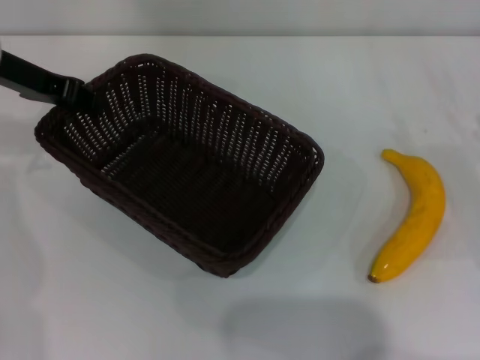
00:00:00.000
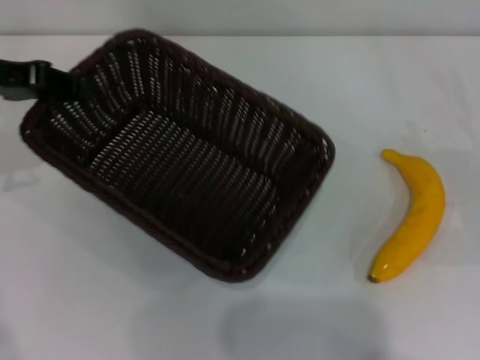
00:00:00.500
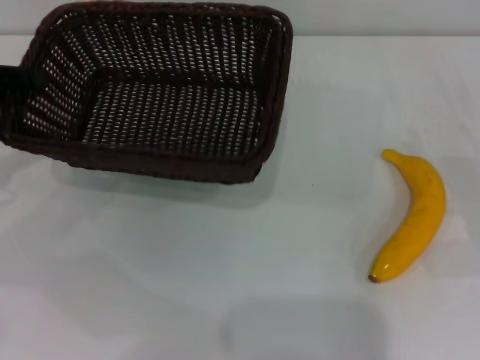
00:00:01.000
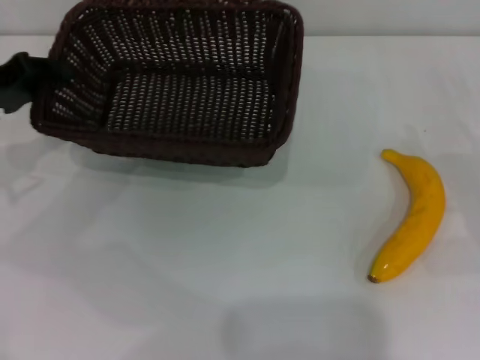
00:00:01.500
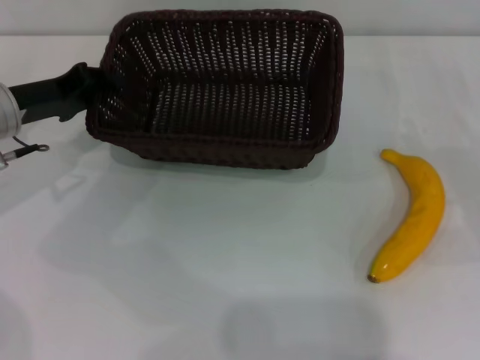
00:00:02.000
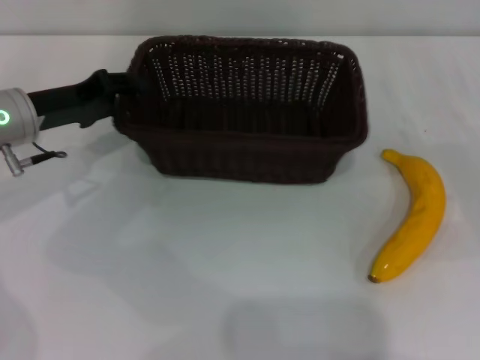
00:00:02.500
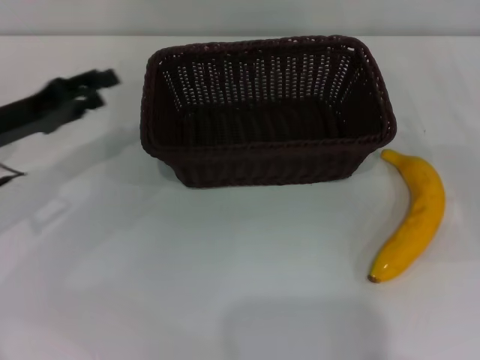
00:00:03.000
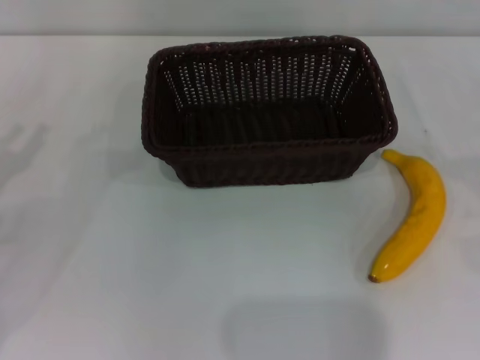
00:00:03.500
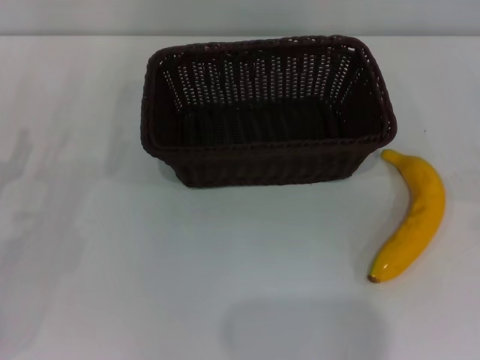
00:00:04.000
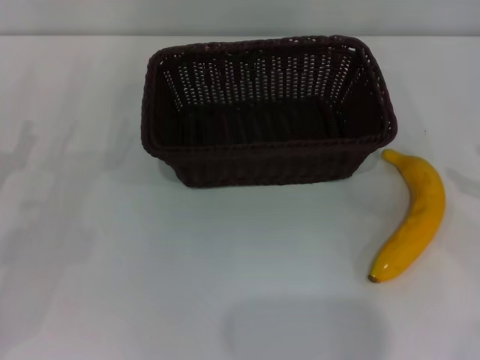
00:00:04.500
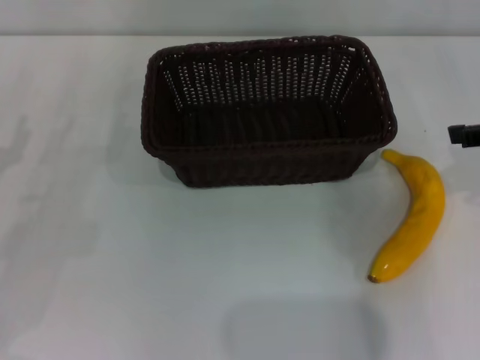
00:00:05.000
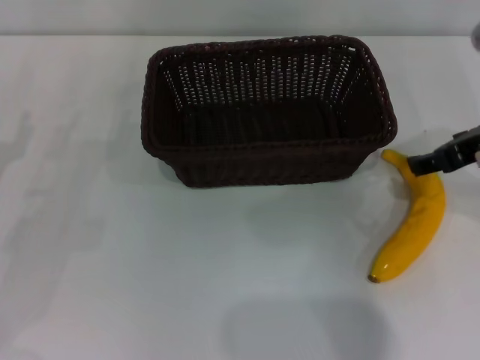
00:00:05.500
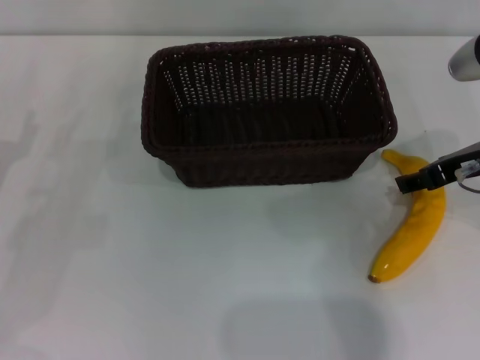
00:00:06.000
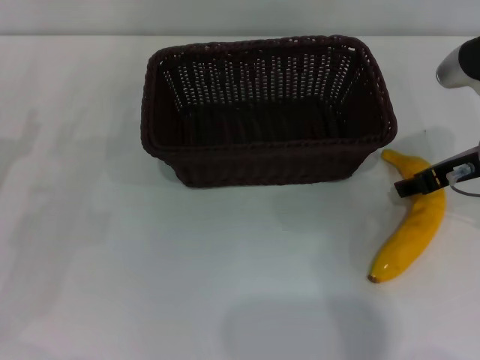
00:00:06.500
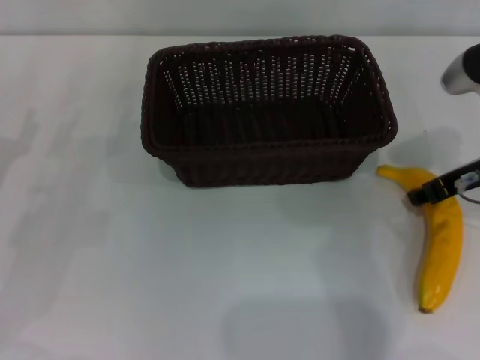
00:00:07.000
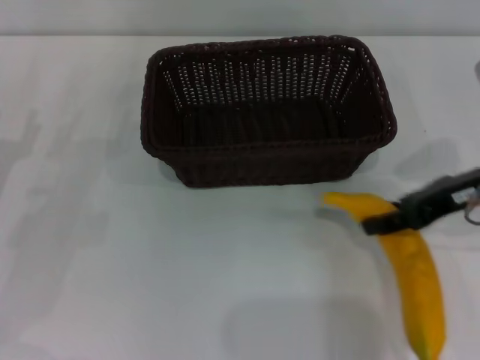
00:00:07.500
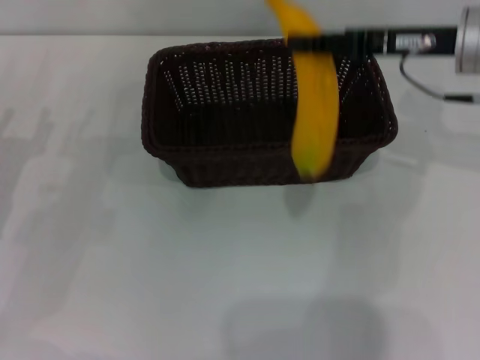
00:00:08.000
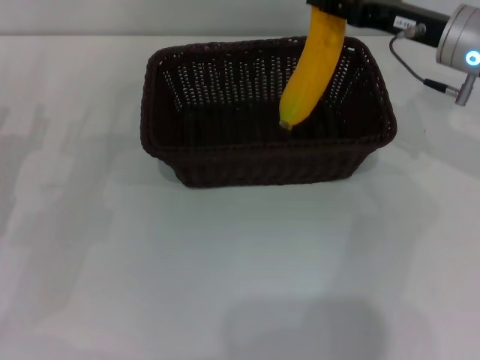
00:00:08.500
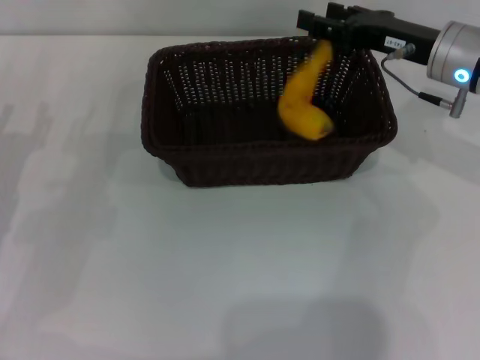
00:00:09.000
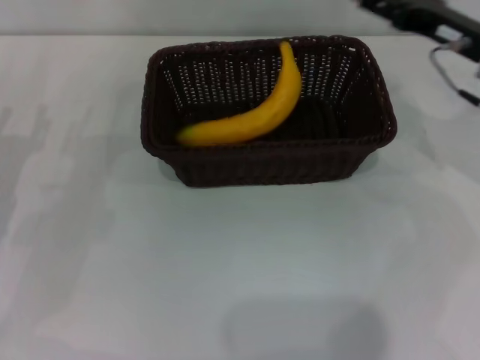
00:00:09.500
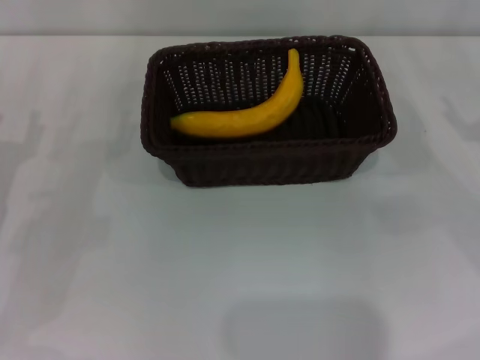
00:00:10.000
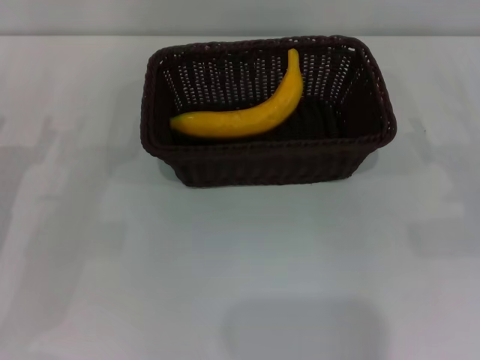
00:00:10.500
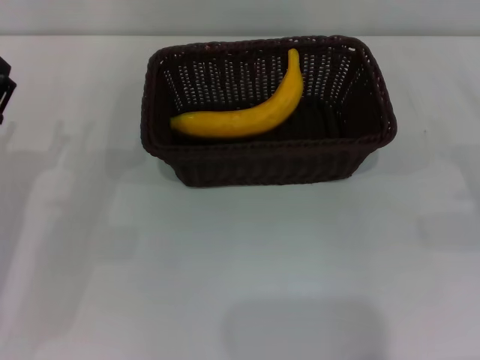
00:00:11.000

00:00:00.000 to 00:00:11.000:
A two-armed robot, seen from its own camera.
Step, 00:00:01.500 to 00:00:02.500: Place the dark basket in the center of view with the left gripper.
Step, 00:00:03.000 to 00:00:07.500: Pick up the banana with the right gripper.
Step, 00:00:08.000 to 00:00:09.000: Place the banana into the dark basket with the right gripper.
00:00:00.000 to 00:00:02.000: The left gripper travels downward by roughly 10 cm, and goes to the left and returns, some 10 cm each way.
00:00:02.000 to 00:00:03.500: The left gripper is displaced backward and to the left by roughly 15 cm, and opens.
00:00:03.500 to 00:00:05.500: The right gripper goes about 20 cm to the left and upward.
00:00:05.500 to 00:00:07.500: The right gripper closes.
00:00:07.500 to 00:00:09.000: The right gripper shifts about 10 cm forward.
00:00:09.000 to 00:00:11.000: The right gripper heads to the right, backward and downward, covering about 20 cm, and opens up.
